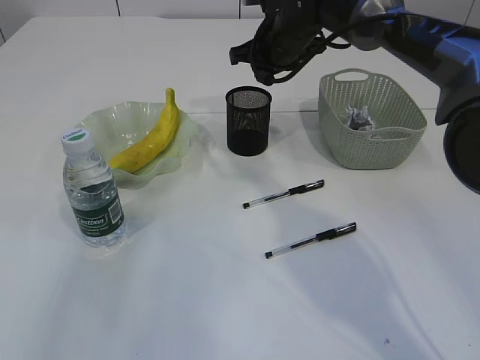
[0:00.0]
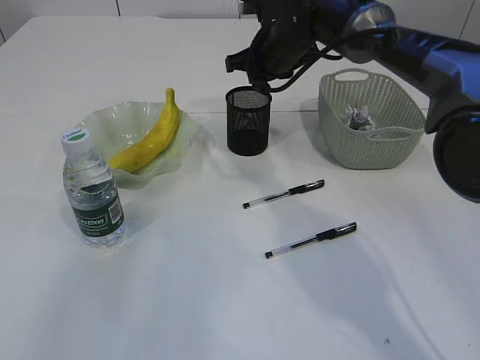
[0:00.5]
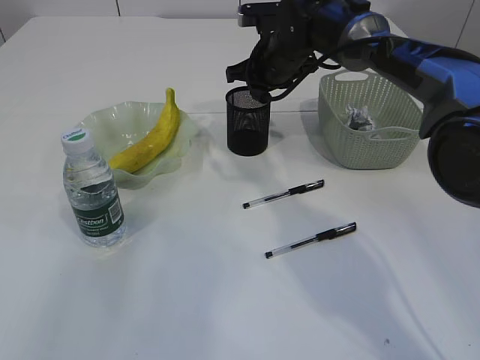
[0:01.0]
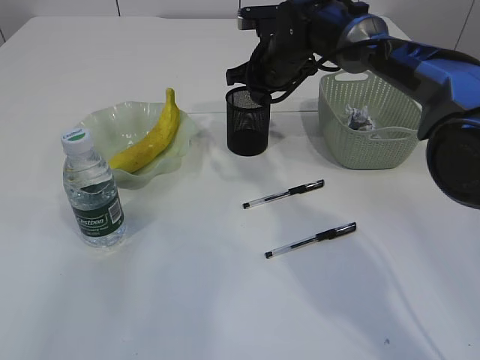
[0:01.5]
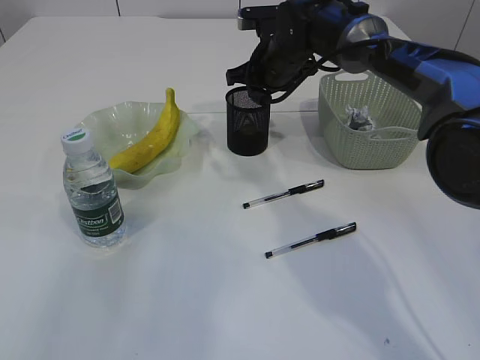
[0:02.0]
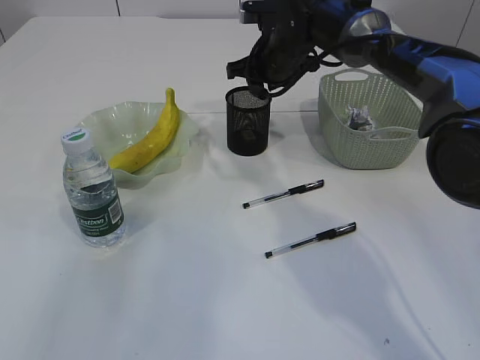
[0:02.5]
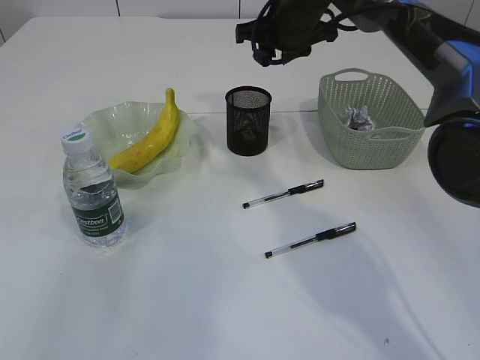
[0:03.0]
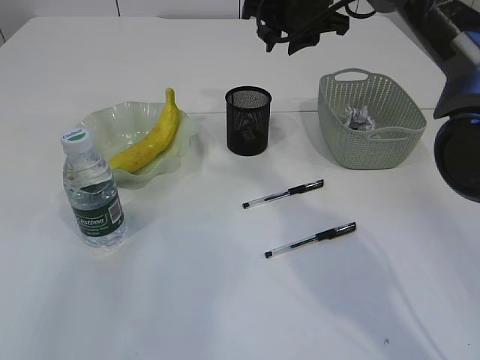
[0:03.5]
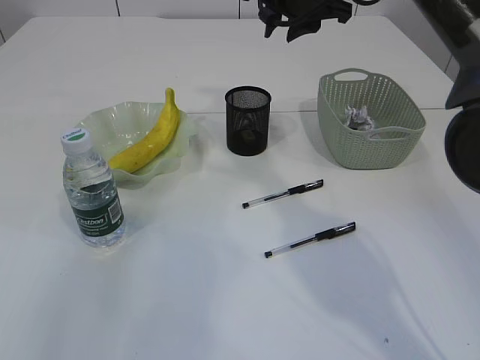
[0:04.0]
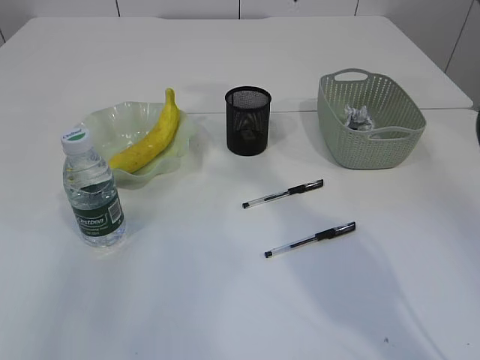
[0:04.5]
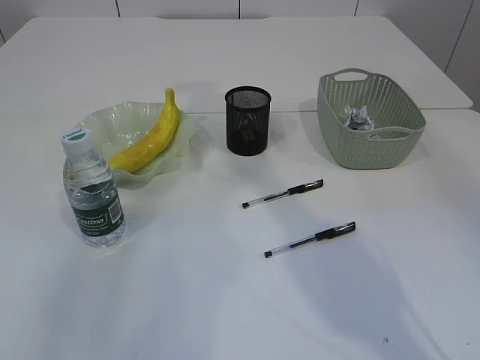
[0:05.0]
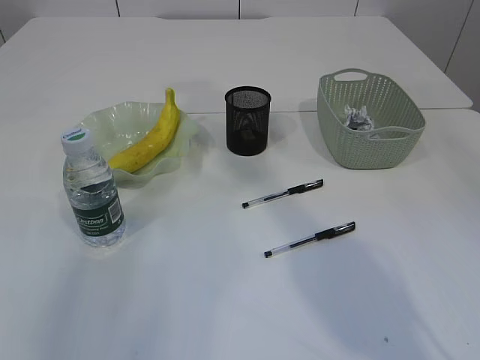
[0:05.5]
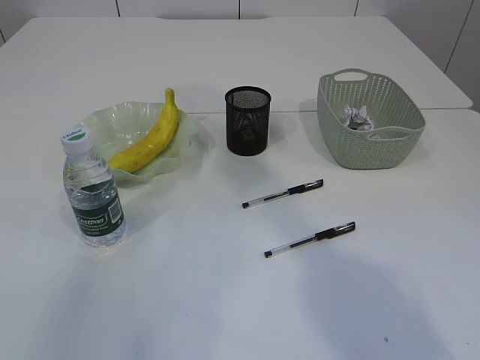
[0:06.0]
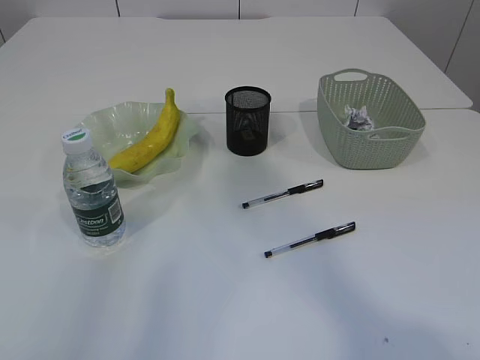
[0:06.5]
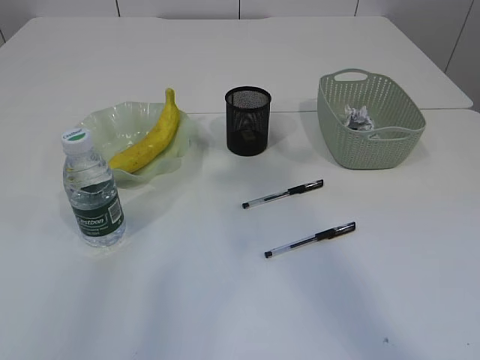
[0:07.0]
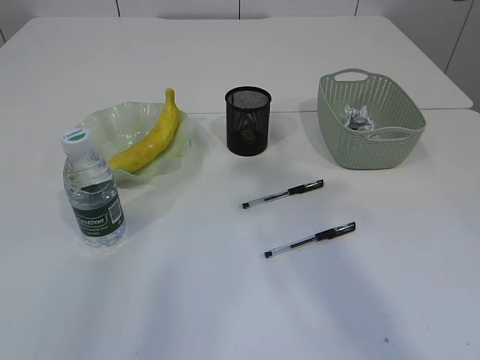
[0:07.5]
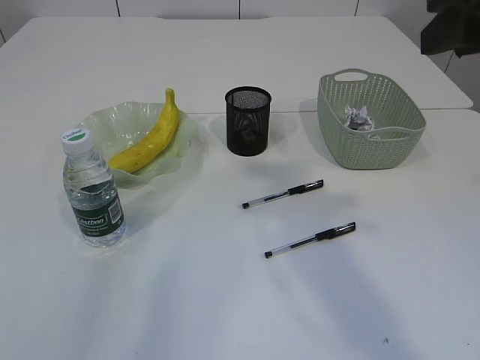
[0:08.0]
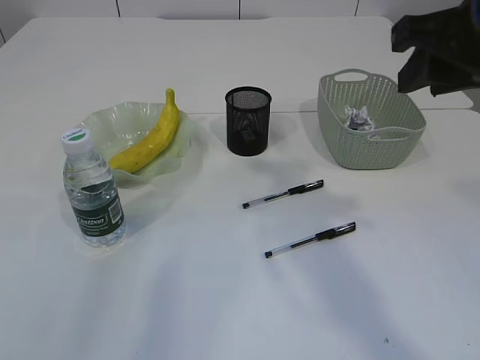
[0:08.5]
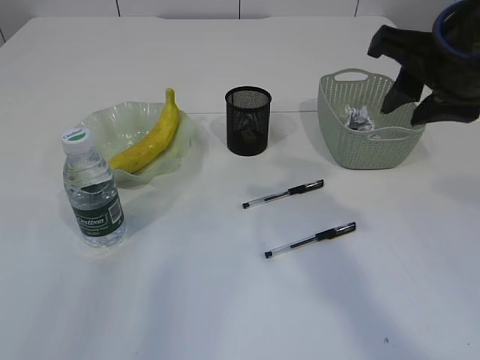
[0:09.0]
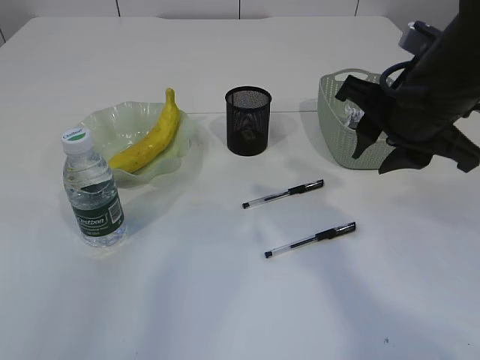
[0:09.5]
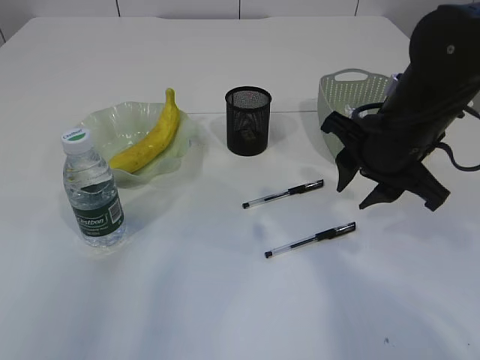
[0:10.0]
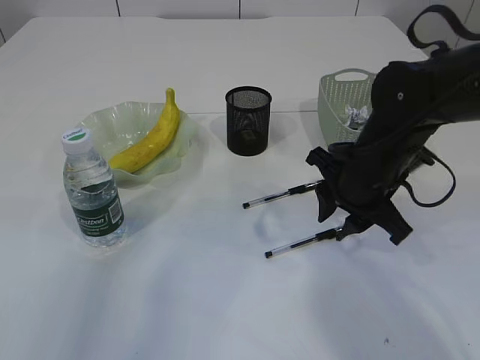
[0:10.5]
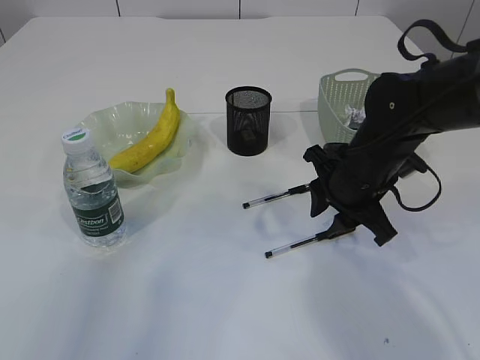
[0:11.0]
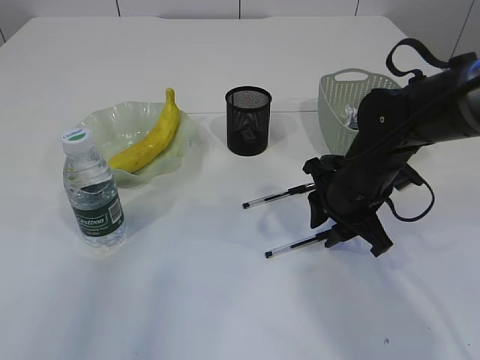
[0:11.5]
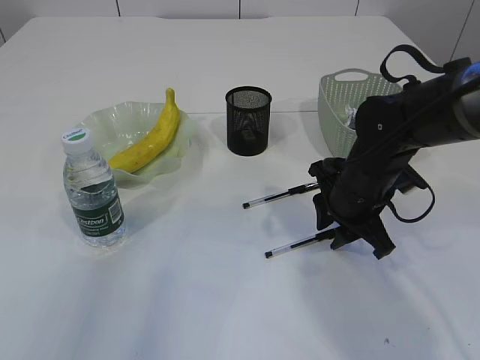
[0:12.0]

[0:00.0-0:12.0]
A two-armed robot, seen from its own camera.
Step, 0:00.0 to 0:02.5: Place the eraser into the pen holder.
0:00.0 to 0:02.0: The grippers make only small movements.
0:02.0 to 0:04.0: The right gripper travels upward by some 10 cm.
0:04.0 to 0:06.0: The right gripper travels upward and backward by some 30 cm.
0:06.0 to 0:08.0: The right gripper heads downward and backward, covering roughly 20 cm.
0:08.0 to 0:10.0: The right gripper is displaced downward and forward by roughly 20 cm.
0:10.0 to 0:12.0: The right gripper travels downward by approximately 10 cm.

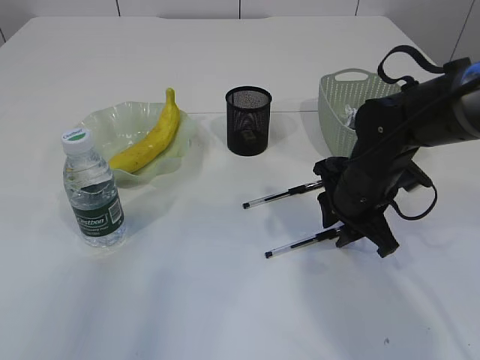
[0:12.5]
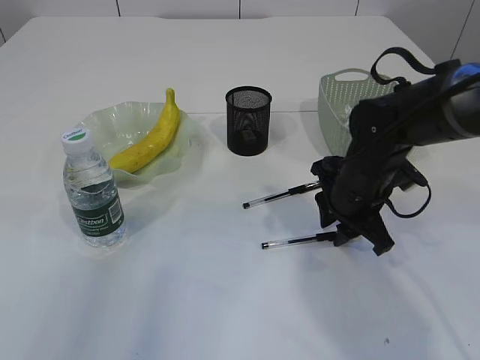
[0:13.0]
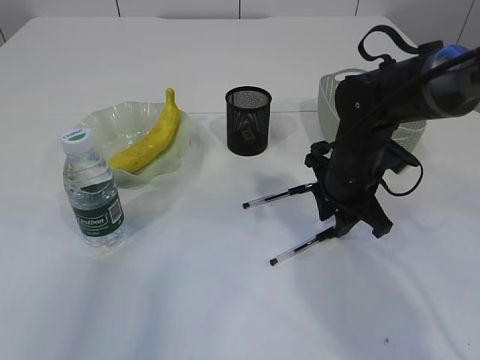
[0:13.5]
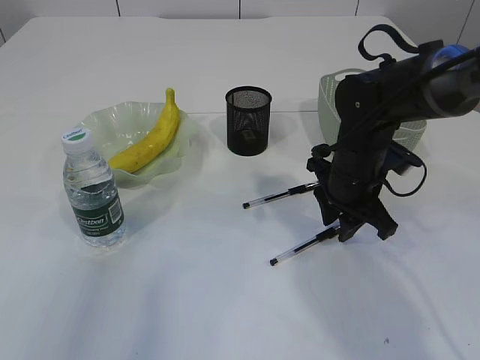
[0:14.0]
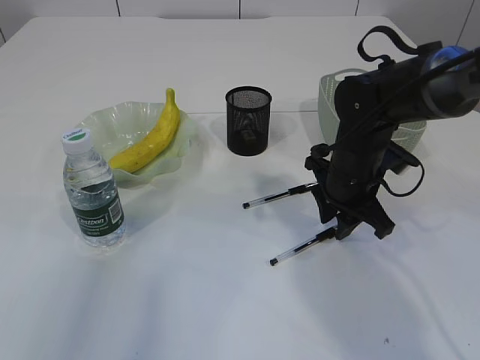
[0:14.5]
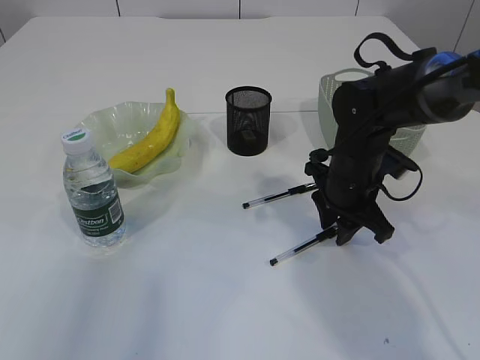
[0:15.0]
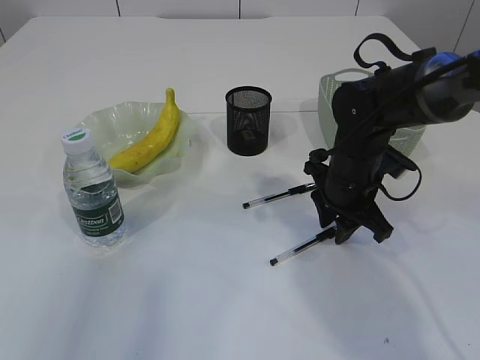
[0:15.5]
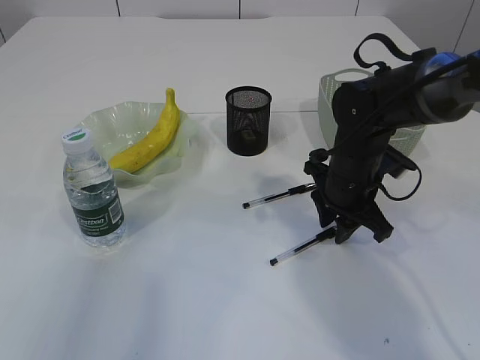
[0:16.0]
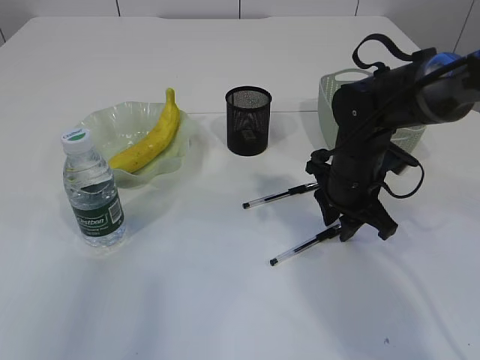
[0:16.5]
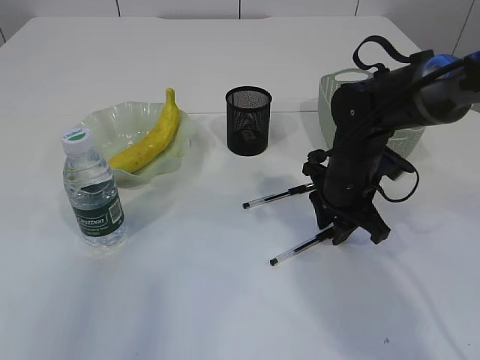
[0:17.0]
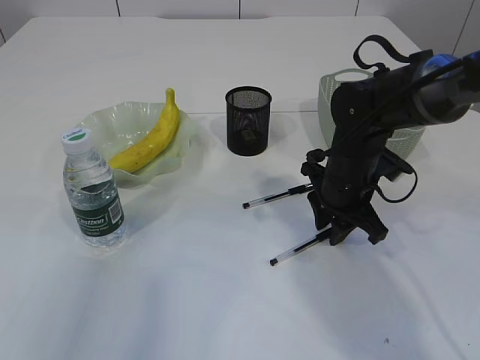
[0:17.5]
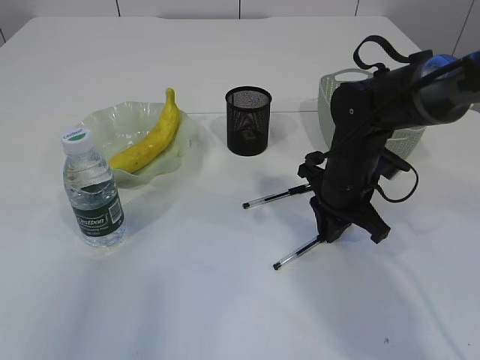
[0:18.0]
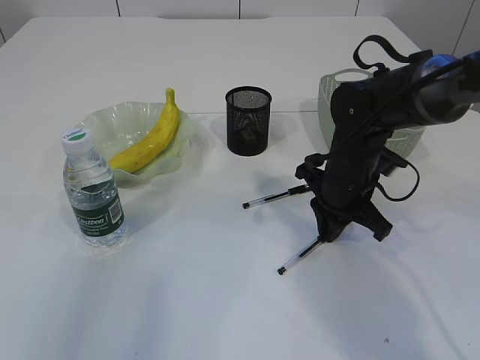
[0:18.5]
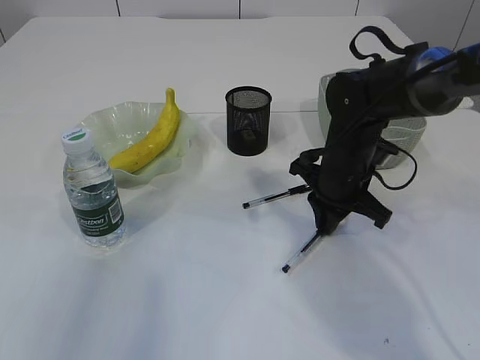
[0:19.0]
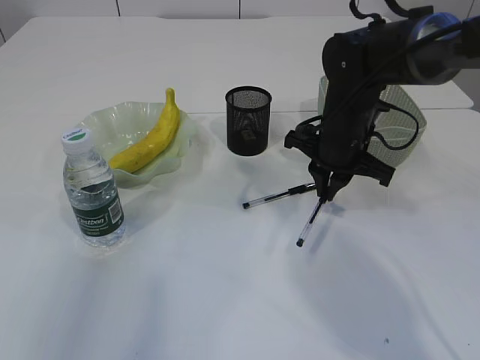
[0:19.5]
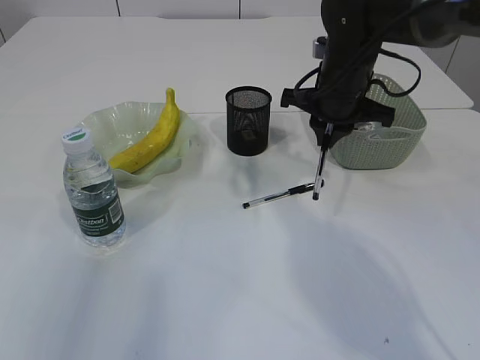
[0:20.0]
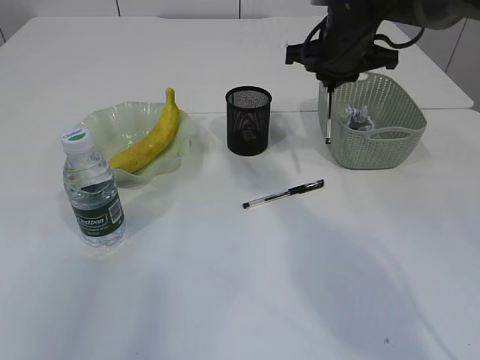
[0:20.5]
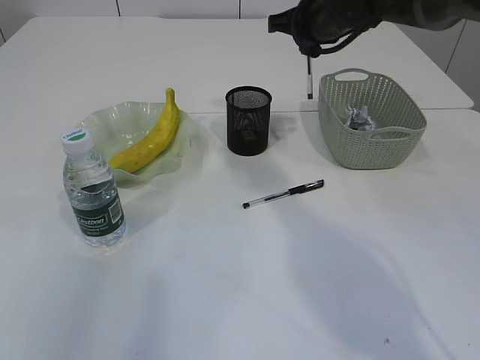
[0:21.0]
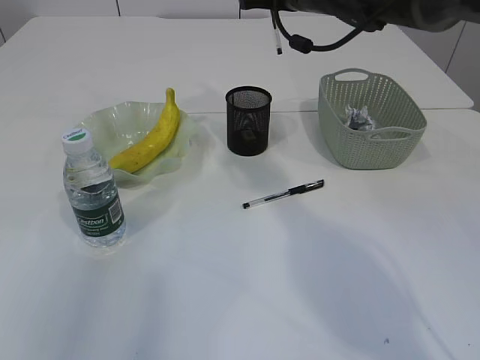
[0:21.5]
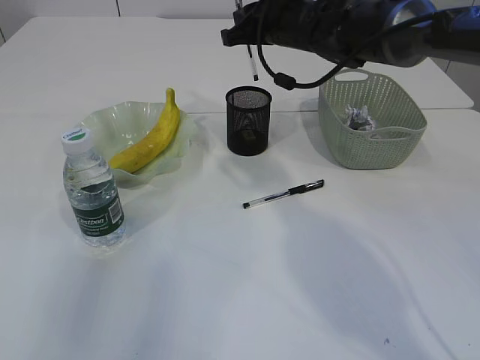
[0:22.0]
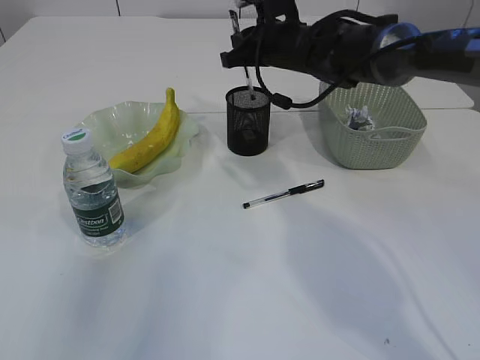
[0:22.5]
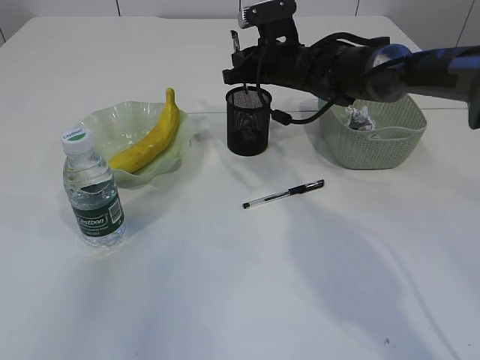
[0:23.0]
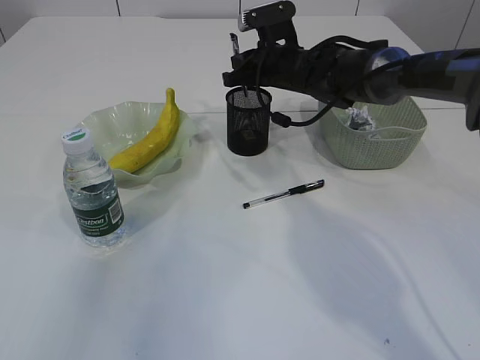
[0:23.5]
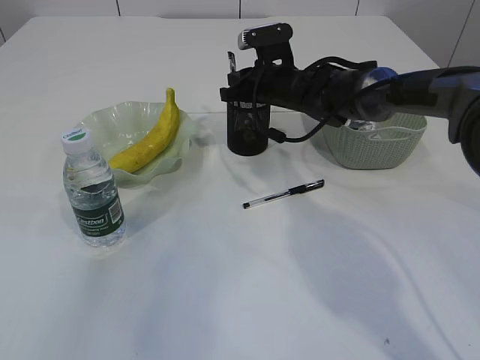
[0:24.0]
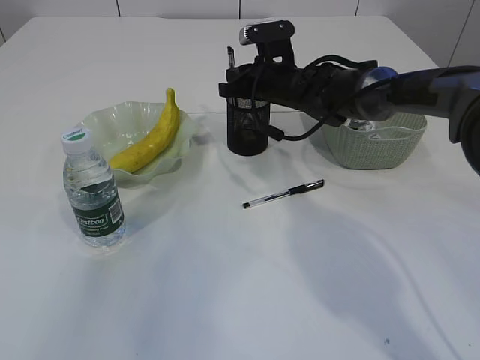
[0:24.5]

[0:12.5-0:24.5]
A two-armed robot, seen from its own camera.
Step, 0:12.5 to 0:19.5: Pick up the pen with right arm.
0:12.5 to 0:14.5: The grippers stay close to where they were, moving slightly.
0:14.5 to 0:16.5: The two grippers keep their place.
0:16.5 to 0:18.5: The right gripper closes up.
0:18.5 to 0:20.5: The right gripper is displaced upward and forward by some 15 cm.
0:20.5 to 0:22.5: The right gripper is displaced to the left and forward by approximately 10 cm.
0:22.5 to 0:24.5: The right gripper travels downward by about 5 cm.

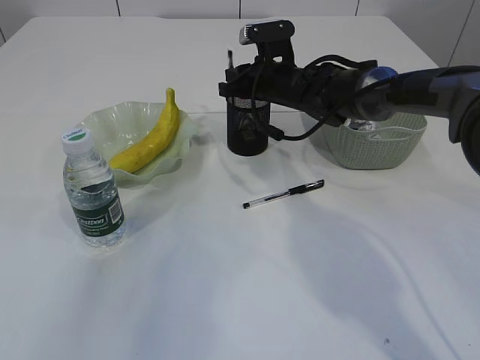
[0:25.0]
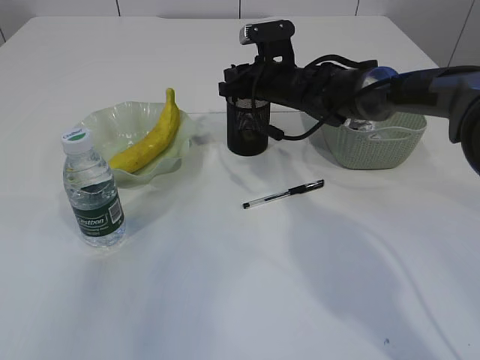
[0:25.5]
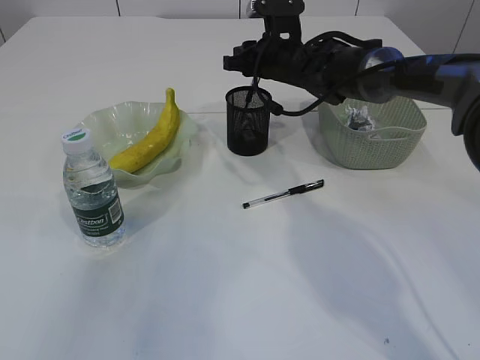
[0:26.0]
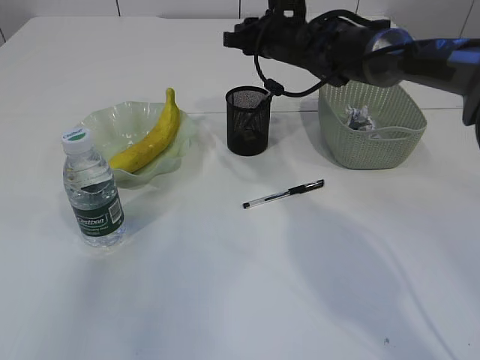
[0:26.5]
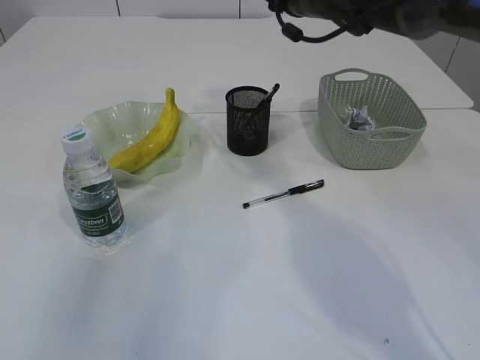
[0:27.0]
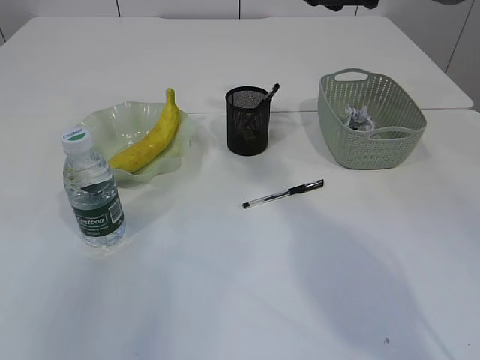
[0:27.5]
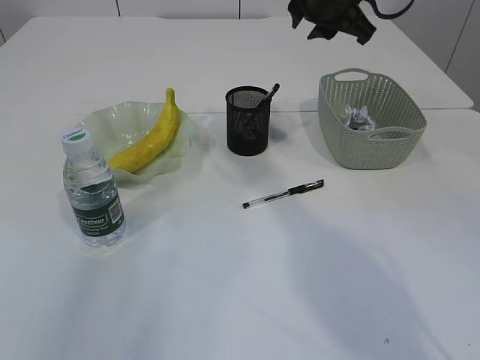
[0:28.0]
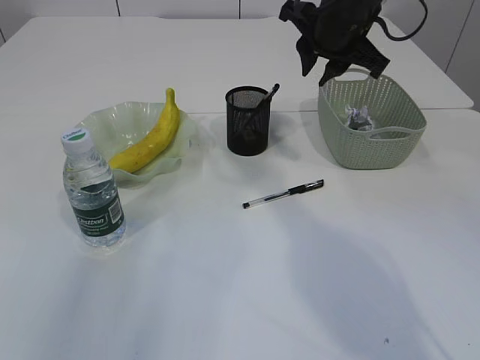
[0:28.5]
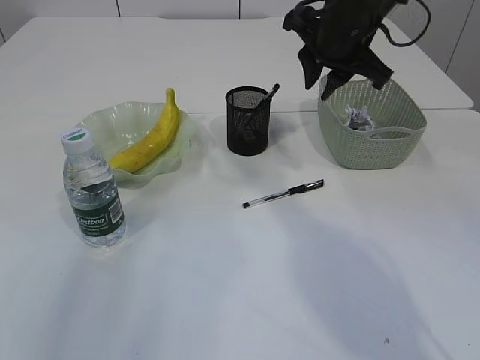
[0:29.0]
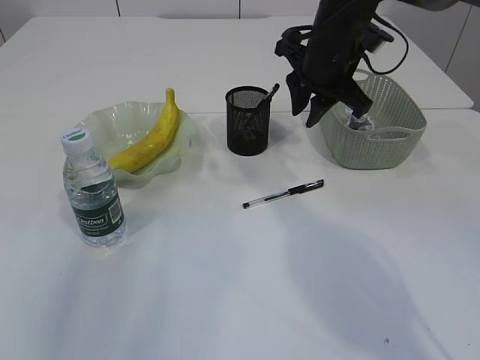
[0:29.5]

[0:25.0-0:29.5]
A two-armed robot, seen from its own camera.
0:25.0 to 0:27.0: The right gripper travels upward by about 10 cm.
0:27.0 to 0:29.5: The right gripper shifts roughly 10 cm backward.
